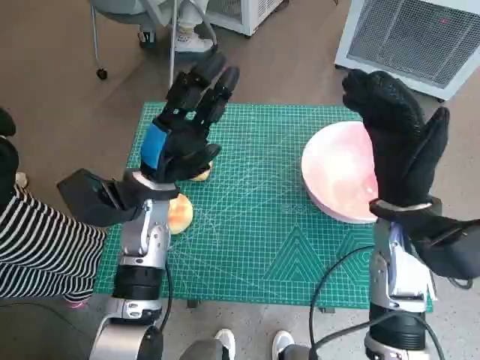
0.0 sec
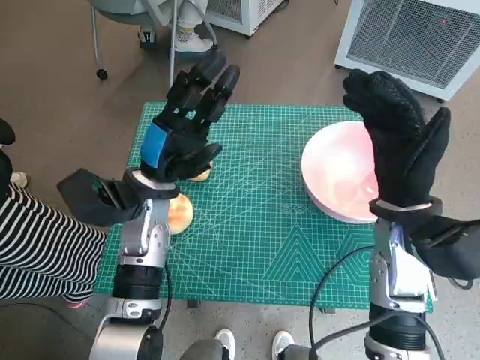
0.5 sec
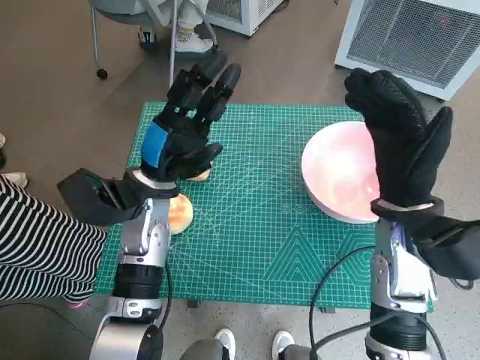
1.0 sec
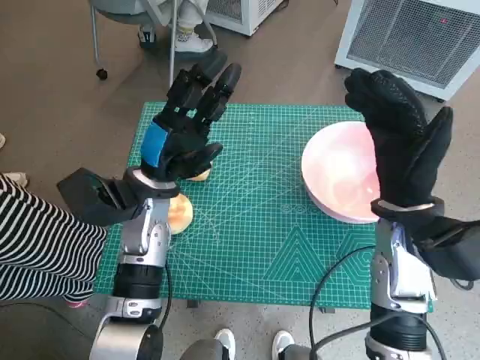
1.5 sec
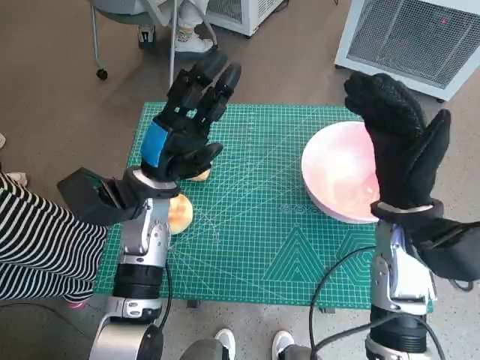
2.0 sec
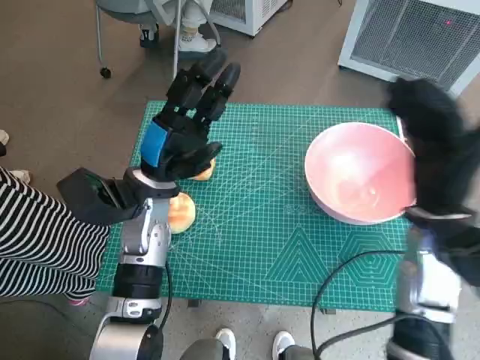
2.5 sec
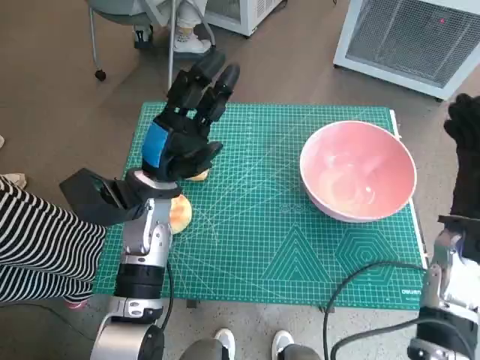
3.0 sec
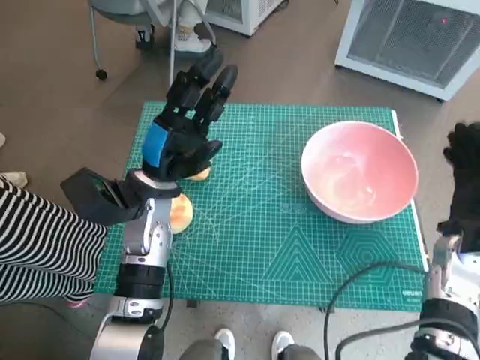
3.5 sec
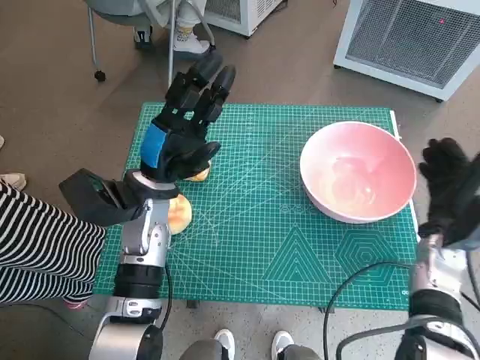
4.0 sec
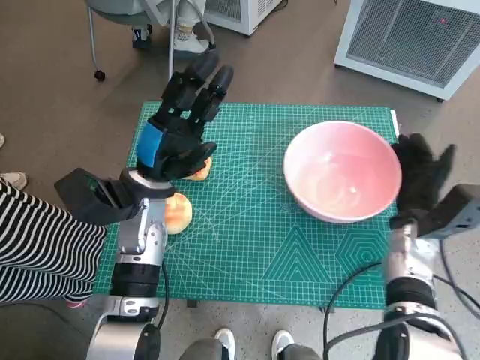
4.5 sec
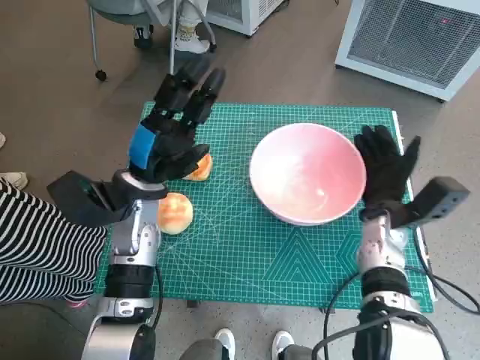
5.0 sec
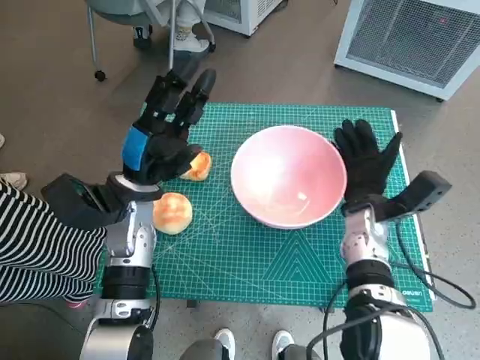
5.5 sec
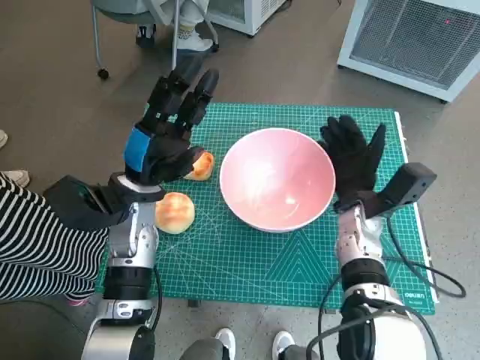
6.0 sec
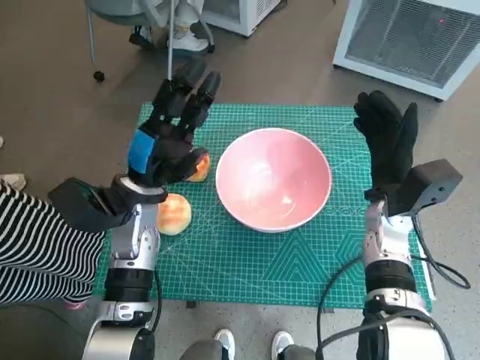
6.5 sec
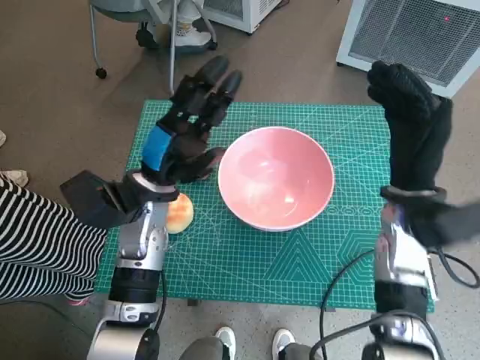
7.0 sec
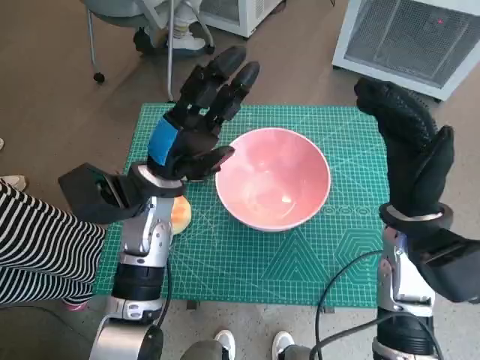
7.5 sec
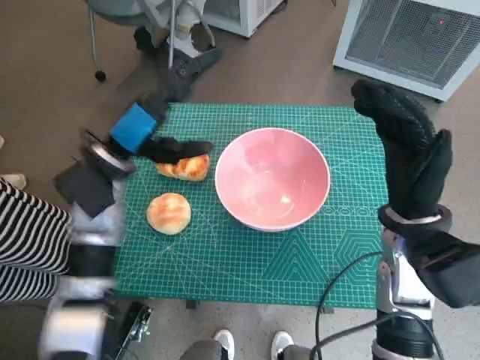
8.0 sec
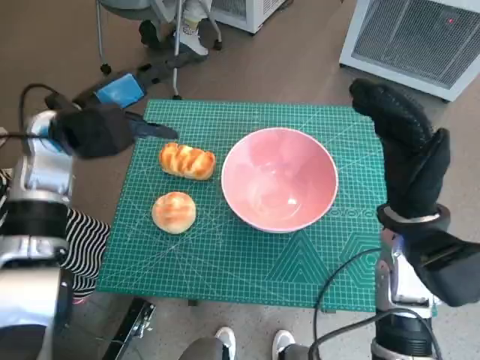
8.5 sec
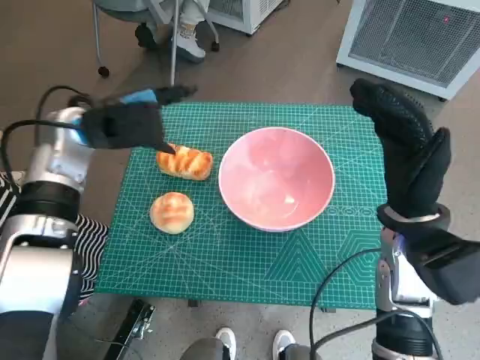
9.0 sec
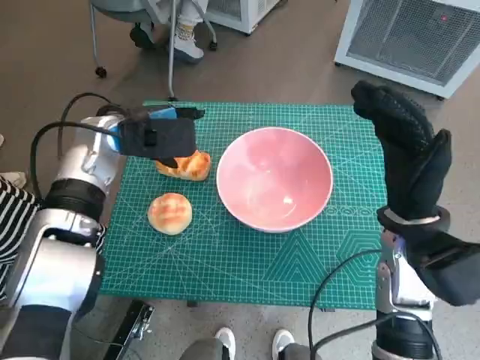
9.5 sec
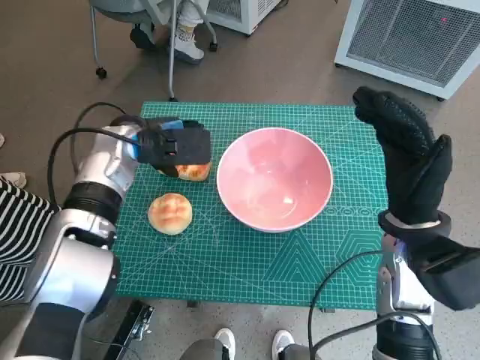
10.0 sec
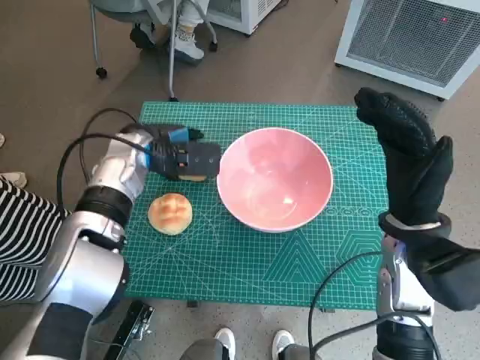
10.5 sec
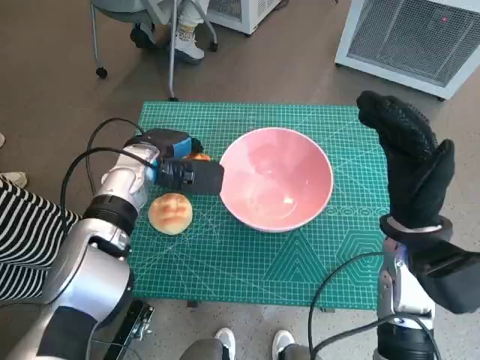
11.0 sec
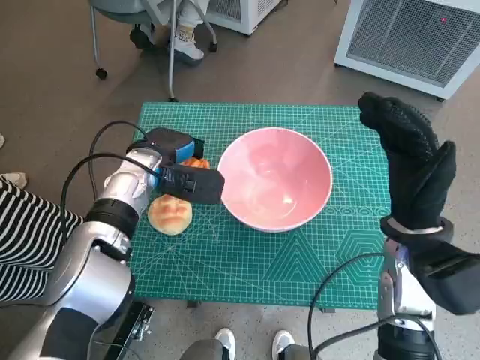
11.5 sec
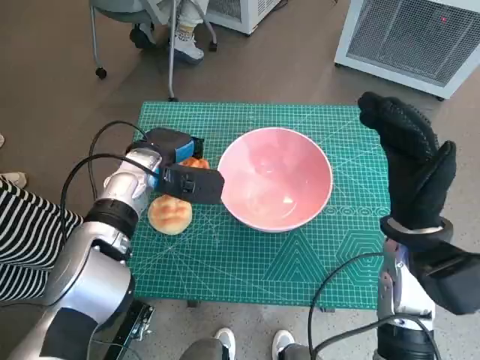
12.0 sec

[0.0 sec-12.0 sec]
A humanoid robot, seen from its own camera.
Task of the whole recording: Push the bowl into the center of the table and put the bread into the bowl.
Step, 0.0 sec to 6.0 sec: Move the pink bowl to the center of table with right hand.
Step, 6.5 sec to 11.0 sec: Grasp the long bread with left hand.
2.0 sec to 4.0 sec: The right hand is displaced downward and to the right by some 15 cm.
4.0 sec to 6.0 sec: The right hand travels to the left by roughly 10 cm.
6.0 sec to 8.0 sec: The right hand shifts some 10 cm upward and backward; the left hand ends up roughly 5 cm from where it was.
8.0 sec to 10.0 sec: The left hand goes some 5 cm forward.
10.0 sec to 12.0 sec: The left hand heads downward, covering roughly 5 cm.

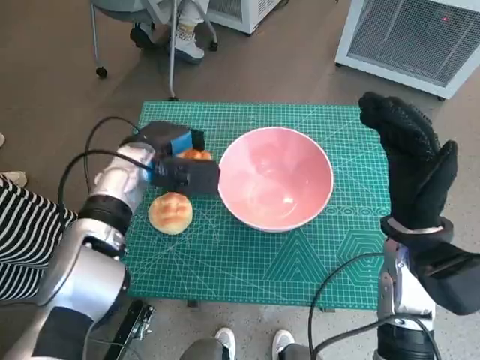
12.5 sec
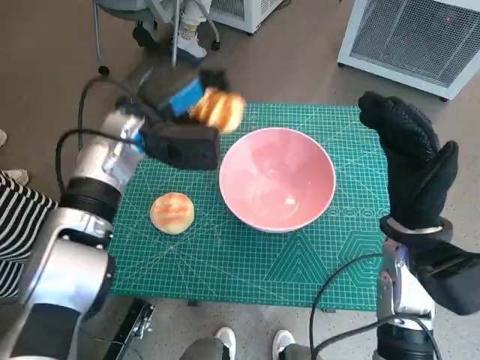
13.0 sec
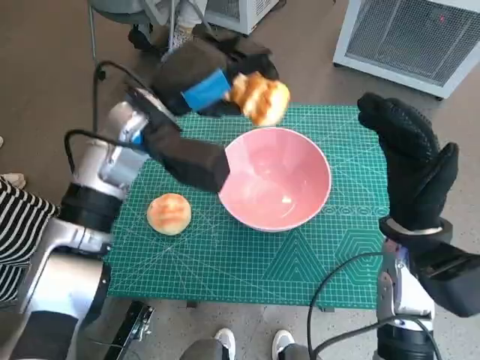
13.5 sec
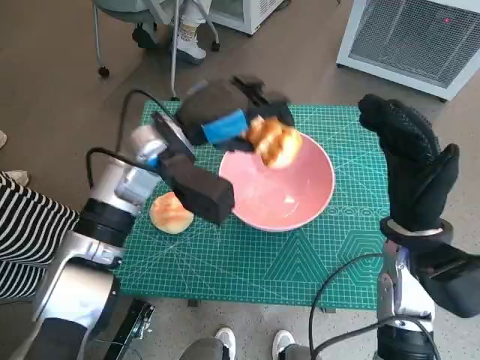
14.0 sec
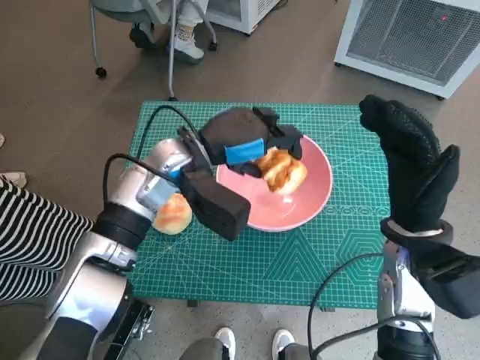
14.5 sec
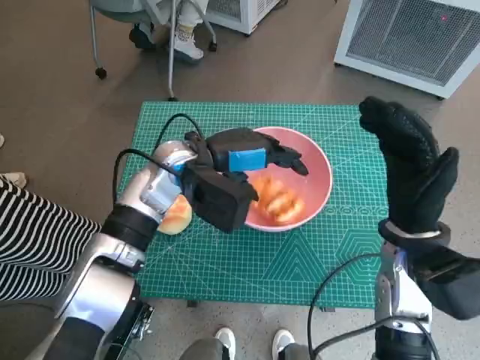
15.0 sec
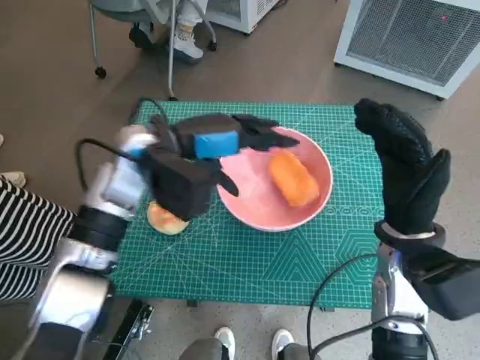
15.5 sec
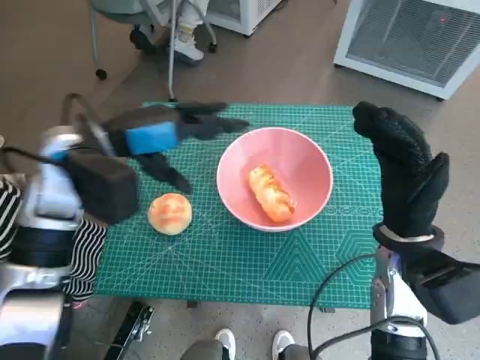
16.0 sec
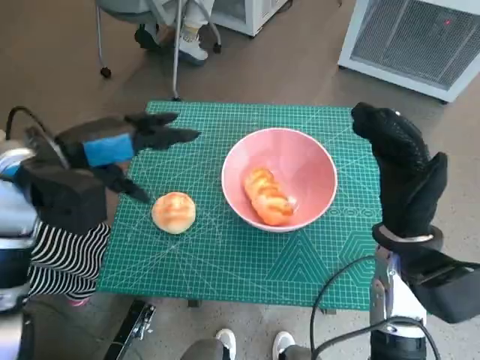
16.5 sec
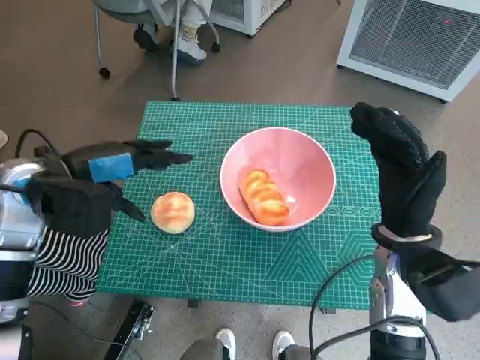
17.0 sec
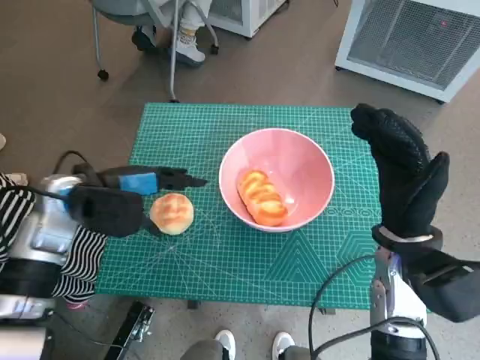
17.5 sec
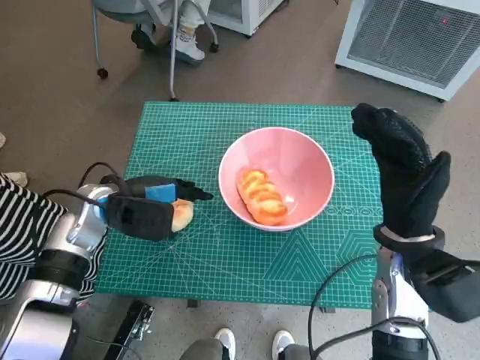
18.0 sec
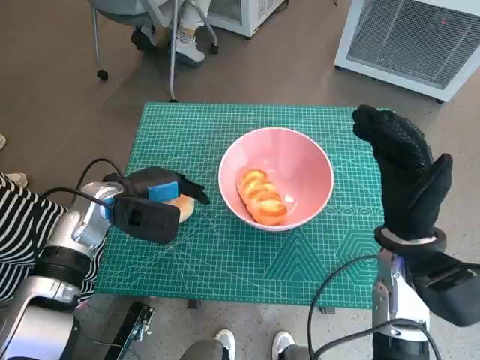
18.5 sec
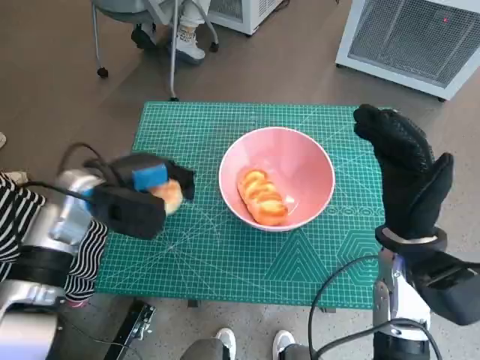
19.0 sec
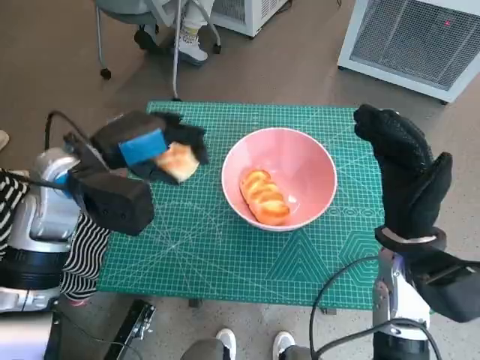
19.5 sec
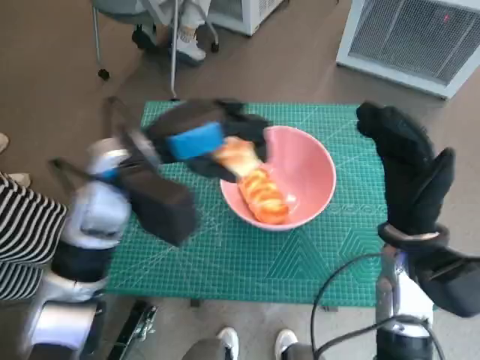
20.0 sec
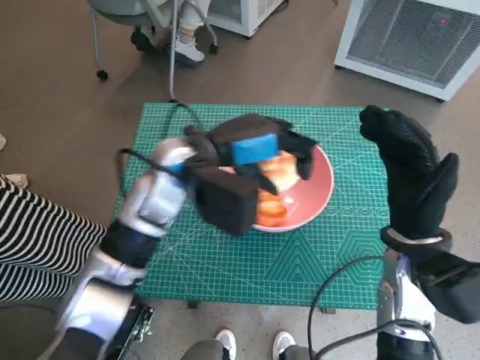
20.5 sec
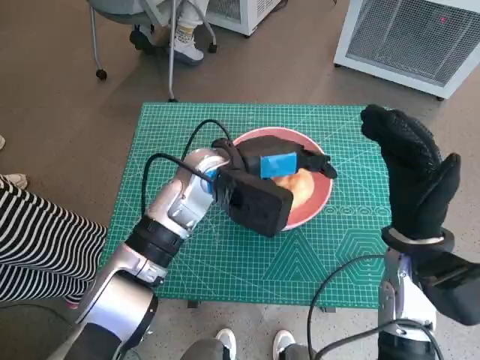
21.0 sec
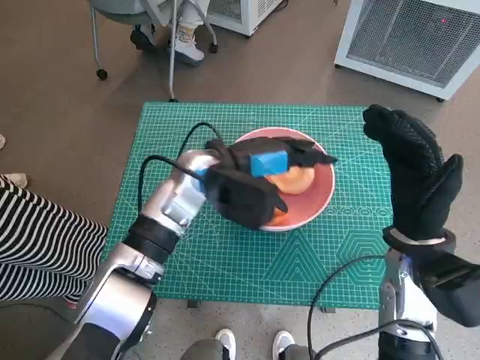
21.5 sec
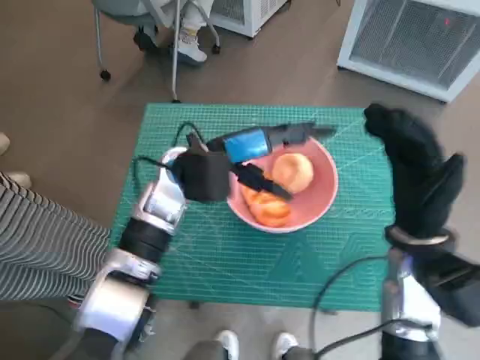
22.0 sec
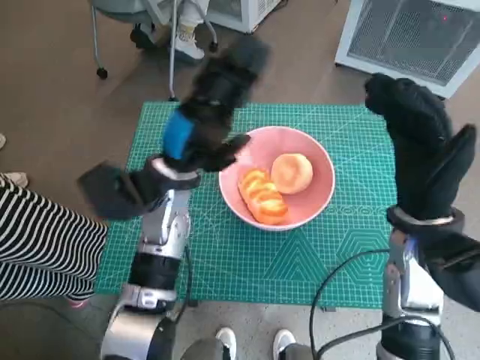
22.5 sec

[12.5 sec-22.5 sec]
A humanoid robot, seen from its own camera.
Task of the whole recording: Push the bowl into the center of the table and put the bread into the bowl.
Step, 12.5 sec to 16.0 sec: Place the long bread in pink bowl with left hand.
Step, 16.5 sec to 18.5 sec: Grasp the round bread with left hand.
Step, 19.0 sec to 22.0 sec: Place the round bread in pink bowl with left hand.
12.5 sec to 14.5 sec: The left hand is displaced to the right by approximately 5 cm.
14.5 sec to 16.5 sec: The left hand is displaced to the left and upward by roughly 15 cm.
16.5 sec to 18.5 sec: The left hand travels downward by some 10 cm.
18.5 sec to 20.5 sec: The left hand is displaced to the right and upward by about 15 cm.
20.5 sec to 22.5 sec: The left hand is displaced downward by some 5 cm.

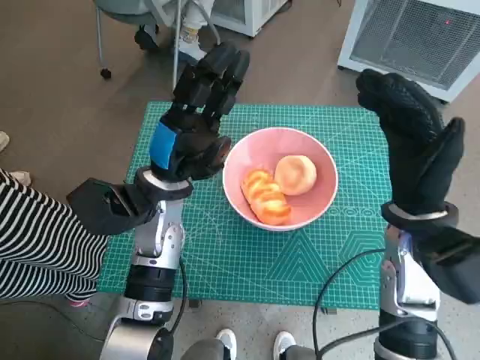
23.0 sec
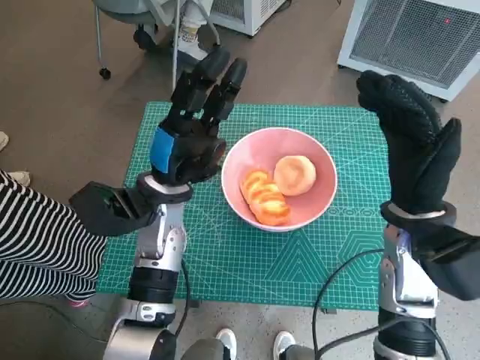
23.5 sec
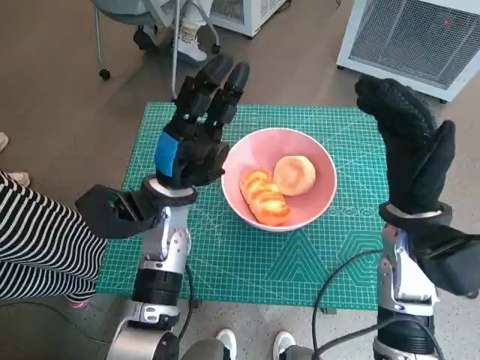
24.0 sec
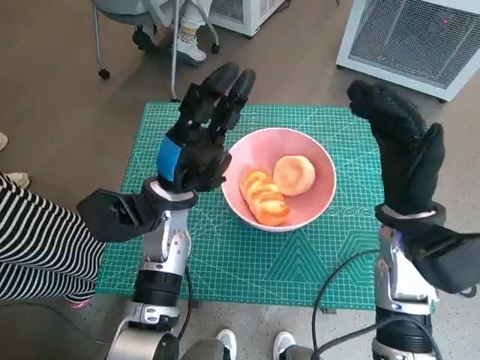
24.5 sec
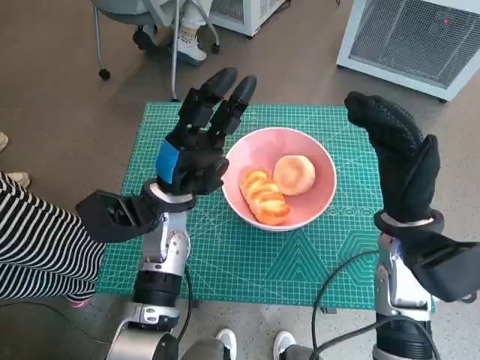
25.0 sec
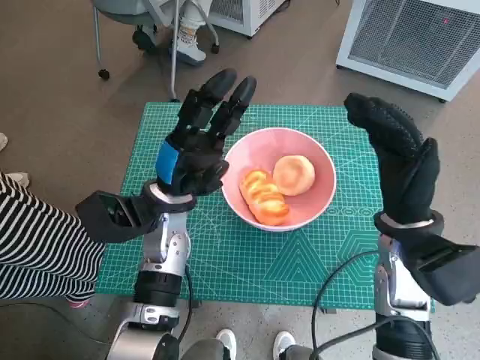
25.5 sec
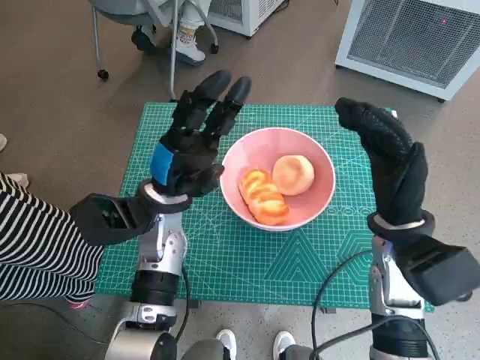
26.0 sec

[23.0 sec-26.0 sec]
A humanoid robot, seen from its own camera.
Task of the whole recording: Push the bowl into the center of the table and put the bread into the bowl.
24.5 sec to 26.0 sec: There are only small adjustments of the hands.
